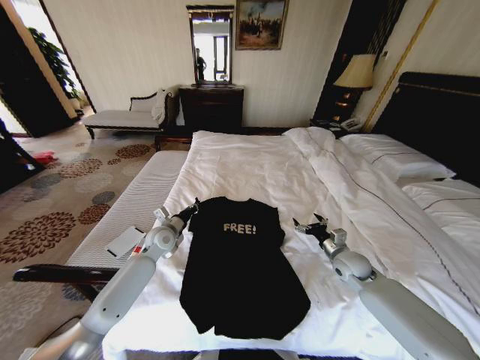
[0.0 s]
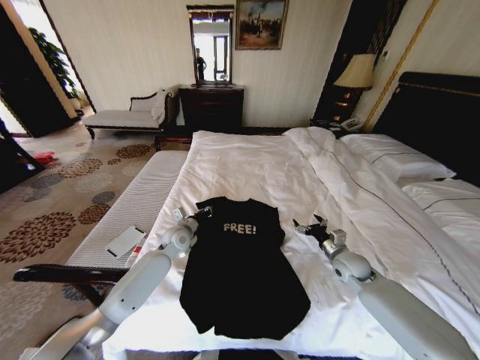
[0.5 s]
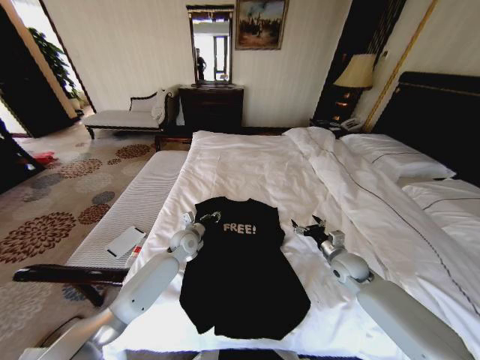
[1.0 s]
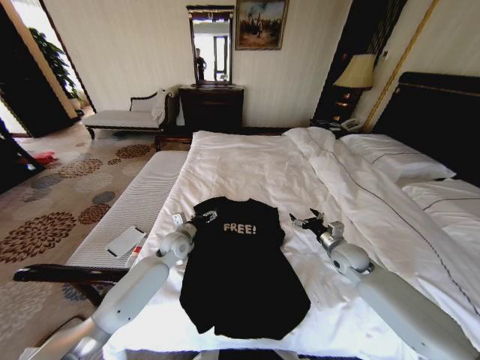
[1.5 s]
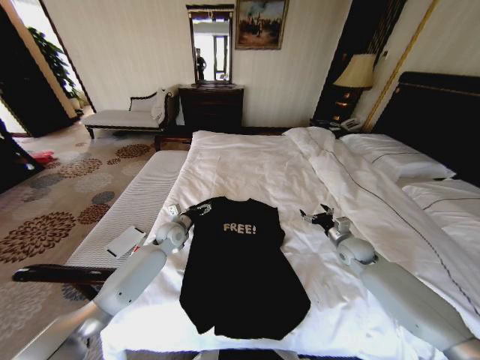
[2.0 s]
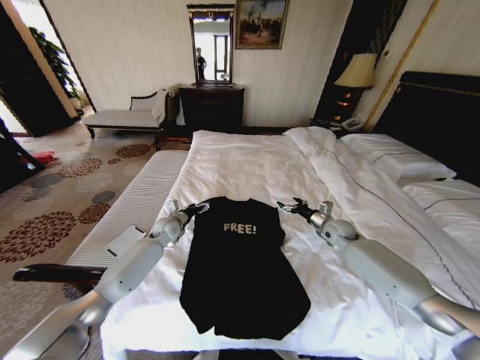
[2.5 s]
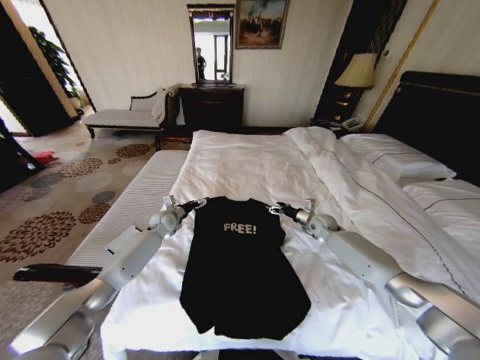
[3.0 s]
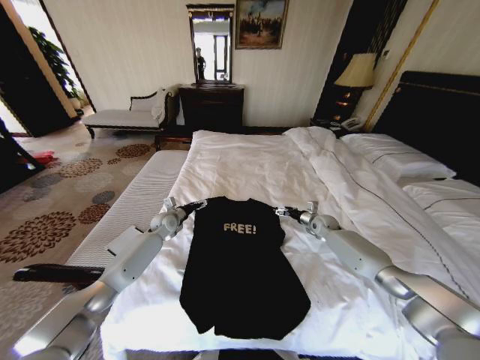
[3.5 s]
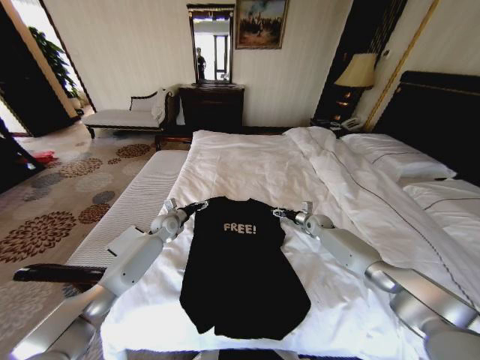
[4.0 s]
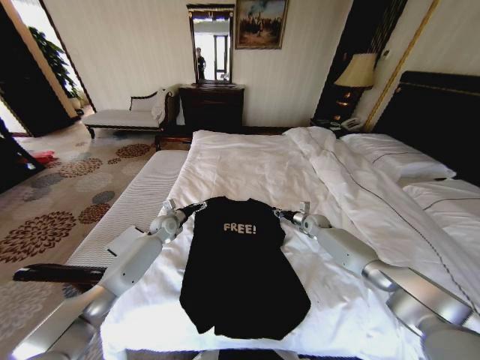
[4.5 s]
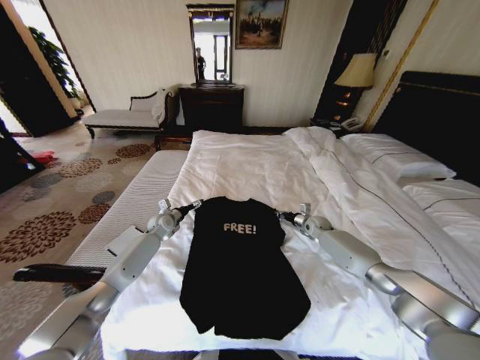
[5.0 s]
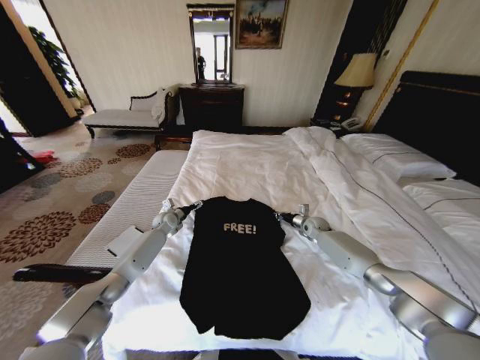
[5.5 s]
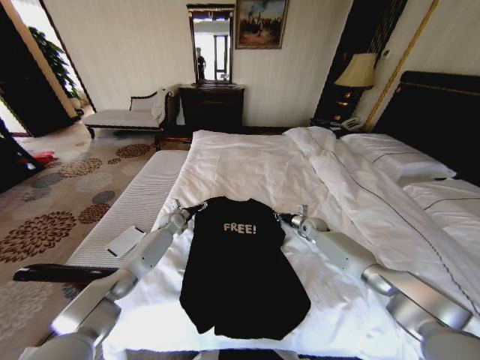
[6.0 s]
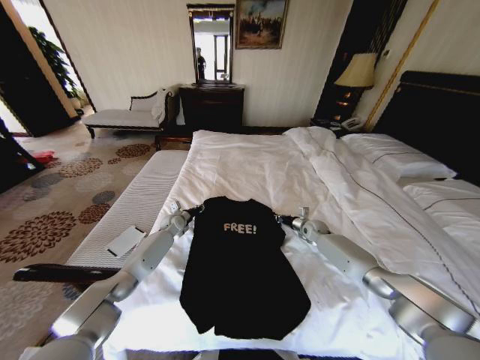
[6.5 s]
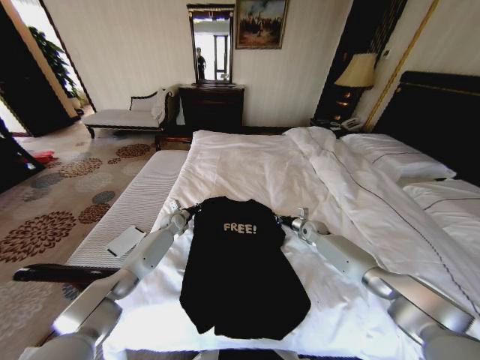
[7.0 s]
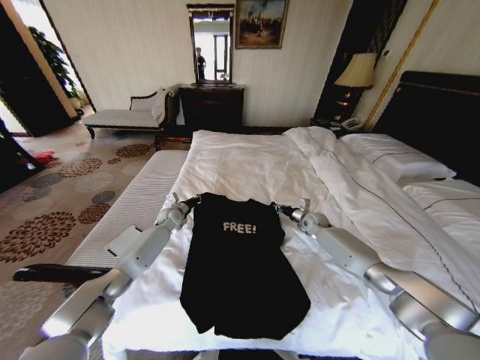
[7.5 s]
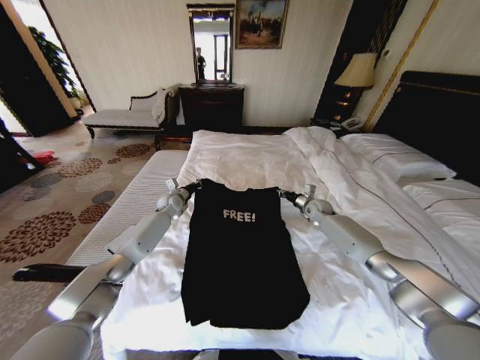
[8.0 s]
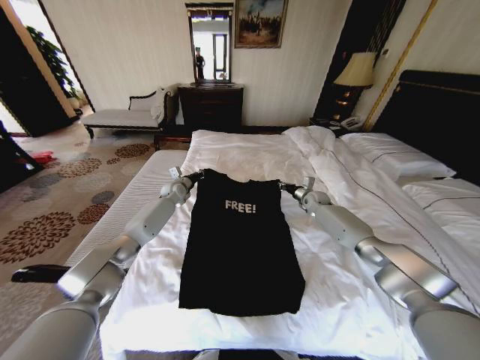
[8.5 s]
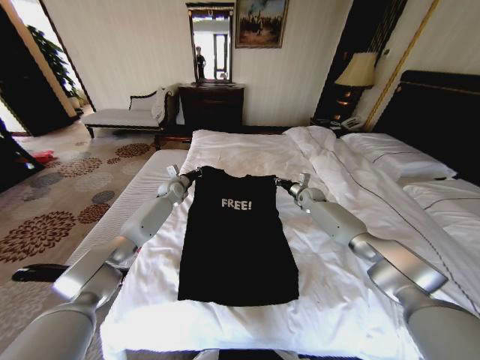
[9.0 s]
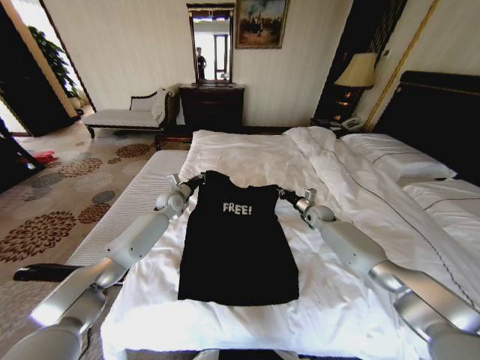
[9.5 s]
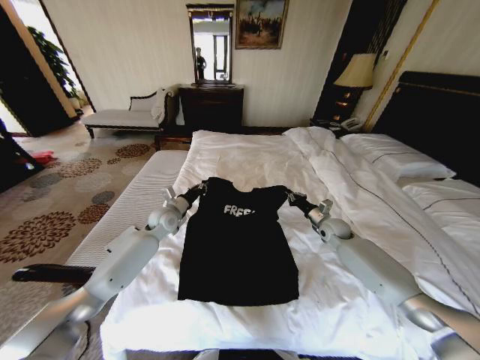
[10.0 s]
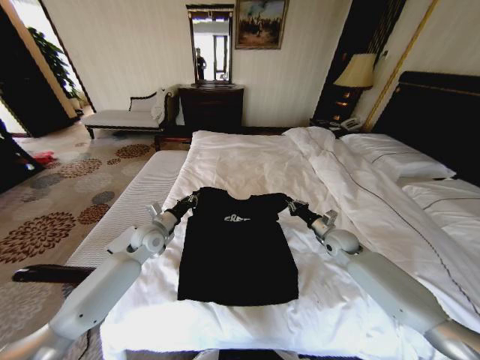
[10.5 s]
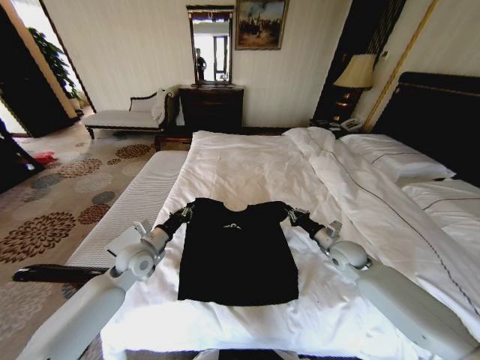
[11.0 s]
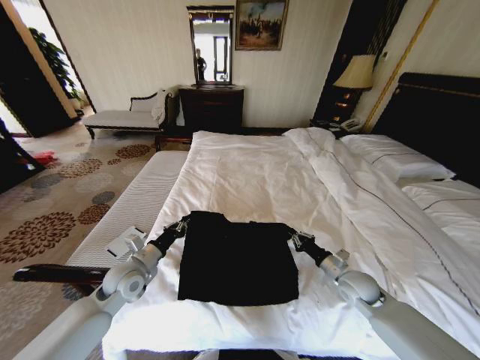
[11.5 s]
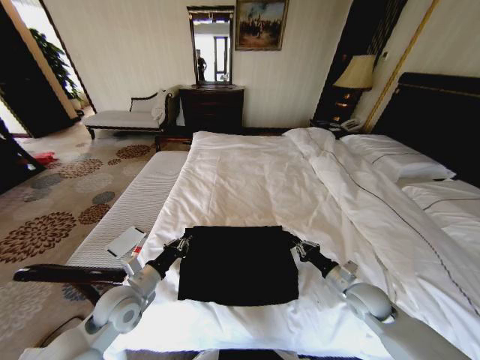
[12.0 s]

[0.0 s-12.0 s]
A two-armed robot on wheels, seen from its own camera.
Task of the whole recording: Fold the clothes on the bed.
0.0 to 2.0 s: The right gripper changes place by roughly 5 cm. Meanwhile the left gripper opens its fingers.
2.0 to 4.0 s: The left gripper shifts some 5 cm forward; the right gripper travels forward by roughly 15 cm.
4.0 to 6.0 s: The right gripper closes up; the left gripper moves approximately 5 cm.
6.0 to 8.0 s: The two grippers go roughly 10 cm upward. The left gripper closes up.
8.0 to 10.0 s: The two grippers go about 10 cm backward.
10.0 to 12.0 s: The two grippers go approximately 25 cm backward.

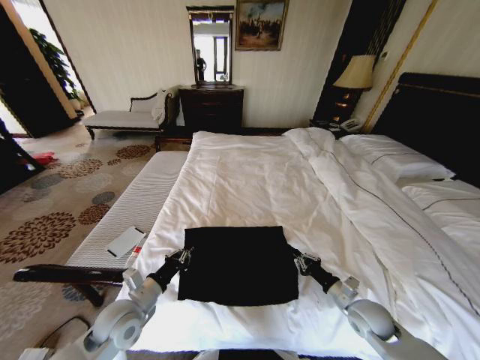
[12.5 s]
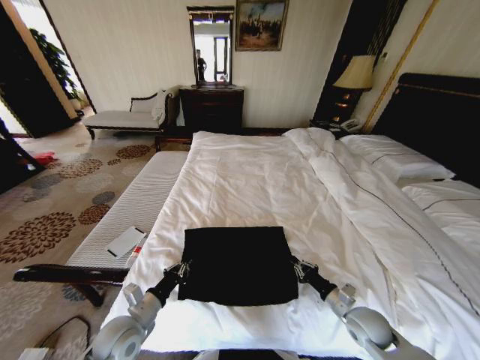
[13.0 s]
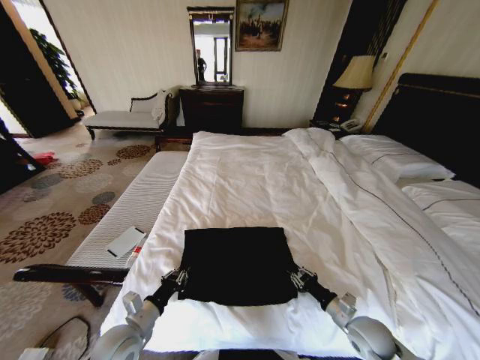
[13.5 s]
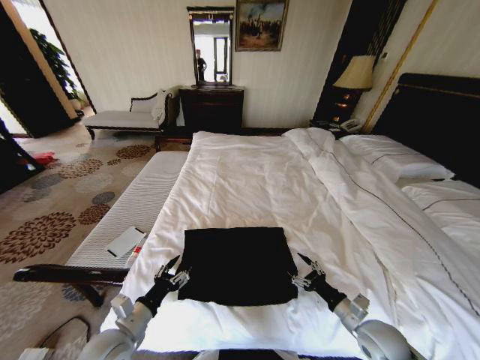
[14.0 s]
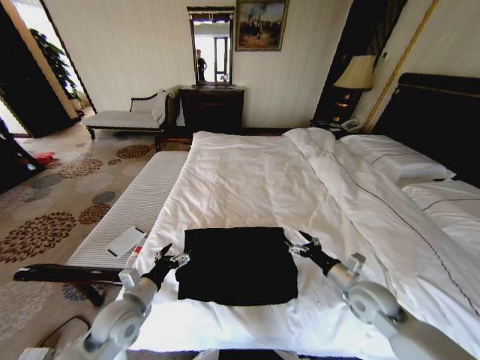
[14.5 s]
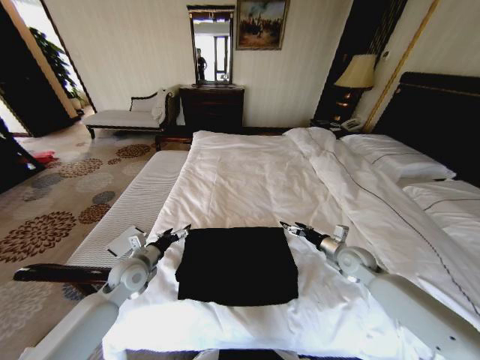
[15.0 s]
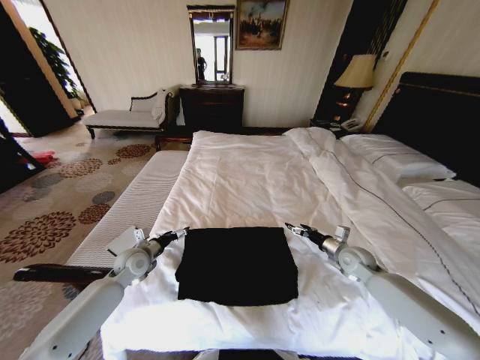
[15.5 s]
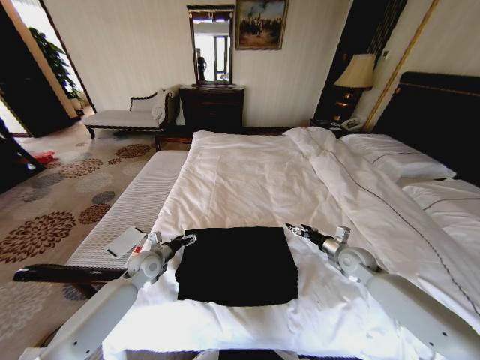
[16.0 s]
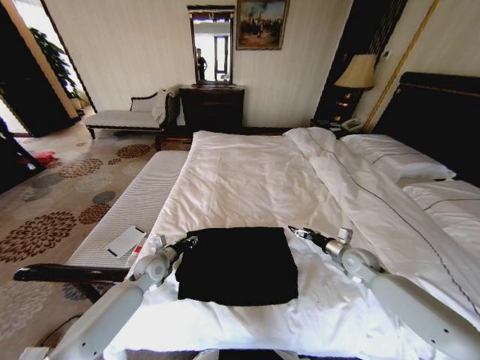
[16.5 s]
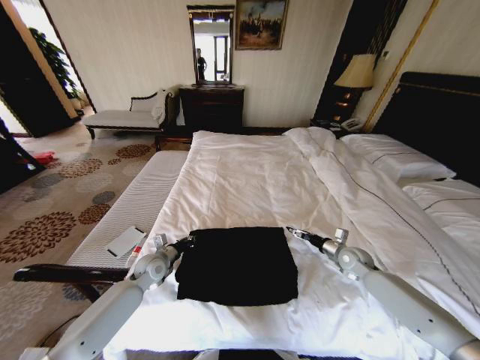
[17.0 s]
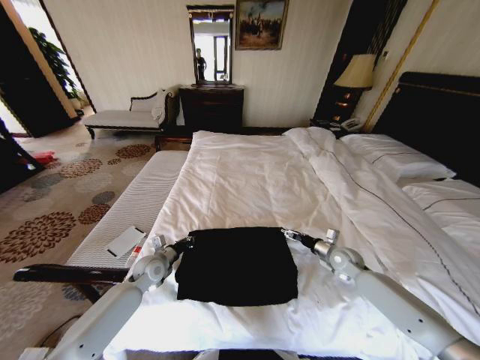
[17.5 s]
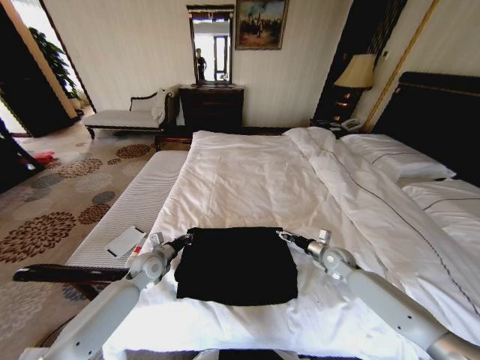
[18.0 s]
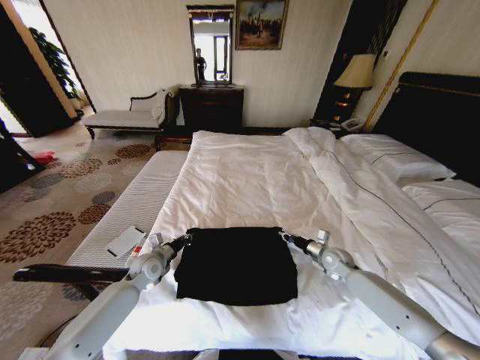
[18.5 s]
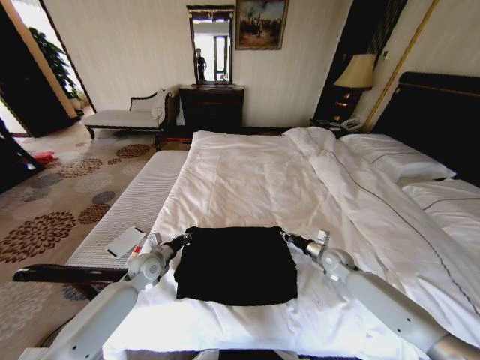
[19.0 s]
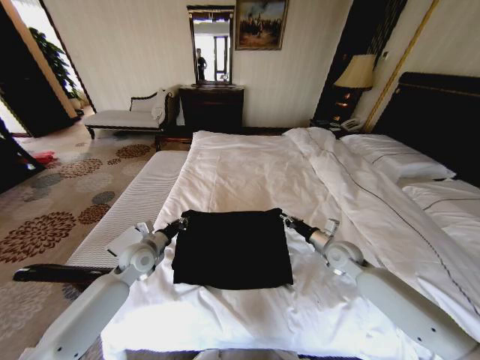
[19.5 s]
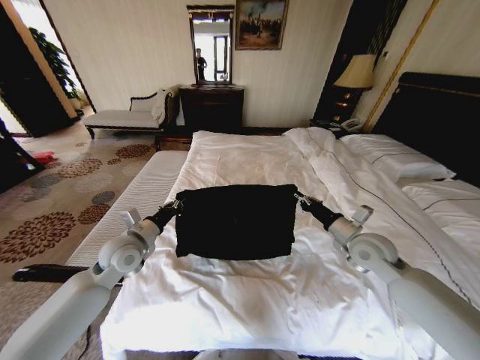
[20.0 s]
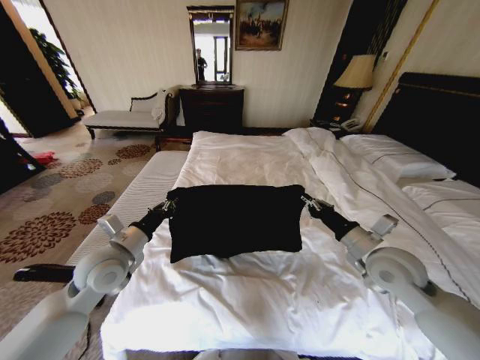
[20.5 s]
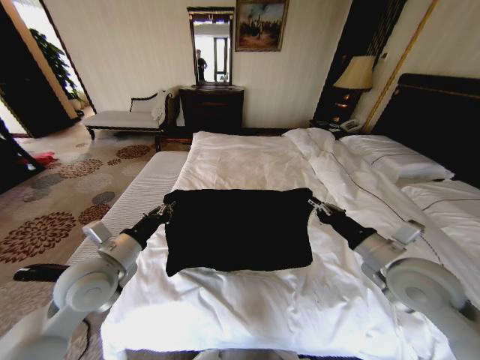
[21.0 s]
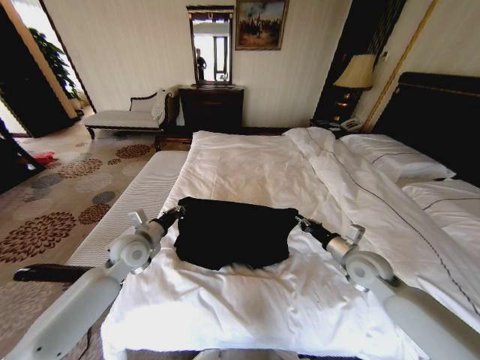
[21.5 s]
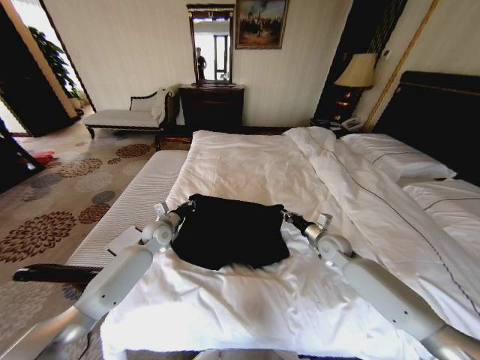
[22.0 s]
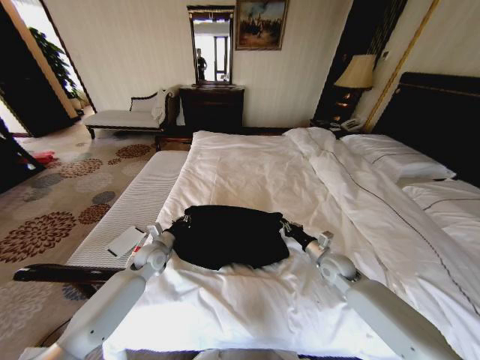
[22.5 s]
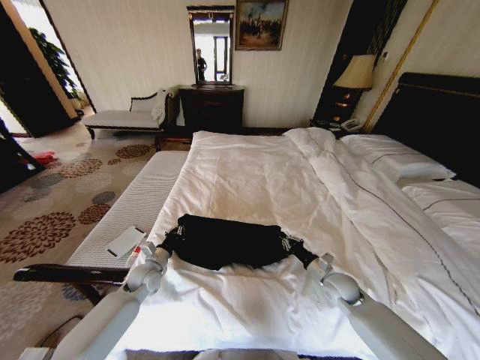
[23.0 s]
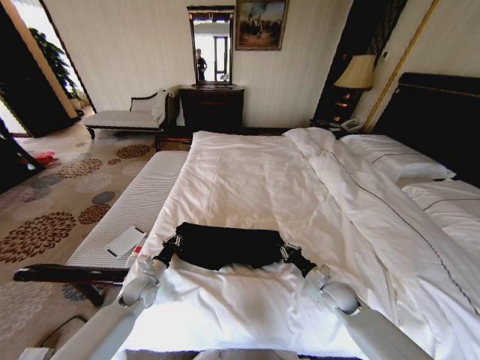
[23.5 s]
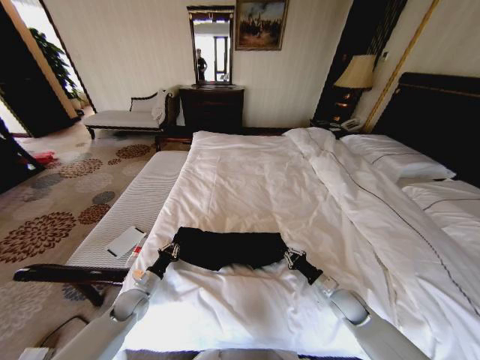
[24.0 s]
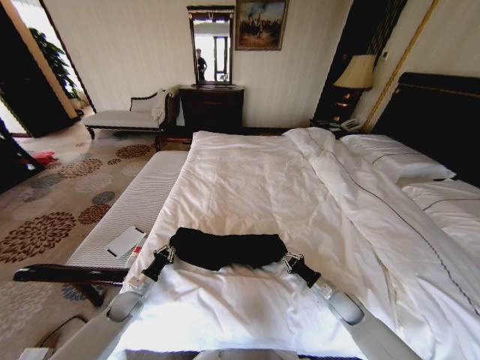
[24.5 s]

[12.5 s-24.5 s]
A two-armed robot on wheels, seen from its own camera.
Task of the whole recording: Fold the clothes on the bed.
12.5 to 14.5 s: The left gripper opens up; the right gripper is displaced upward by roughly 5 cm, and opens up.
14.5 to 16.5 s: The left gripper shifts approximately 15 cm forward, and closes its fingers, while the right gripper travels forward and to the right by approximately 15 cm.
16.5 to 18.5 s: The left gripper closes up. The right gripper ends up about 5 cm from where it was, and closes.
18.5 to 20.5 s: Both grippers travel together upward and backward, some 20 cm.
20.5 to 22.5 s: The right gripper moves downward and forward, roughly 20 cm; the left gripper moves forward and backward over about 20 cm, changing direction 2 times.
22.5 to 24.5 s: The right gripper shifts some 15 cm downward and backward, while the left gripper shifts approximately 20 cm downward, backward and to the left.

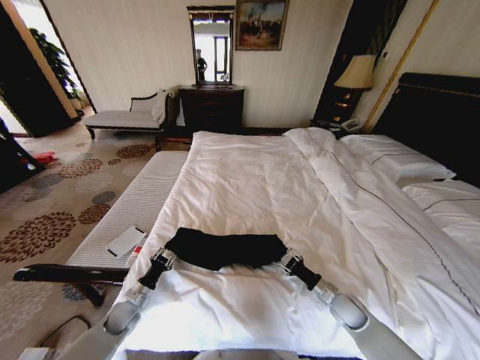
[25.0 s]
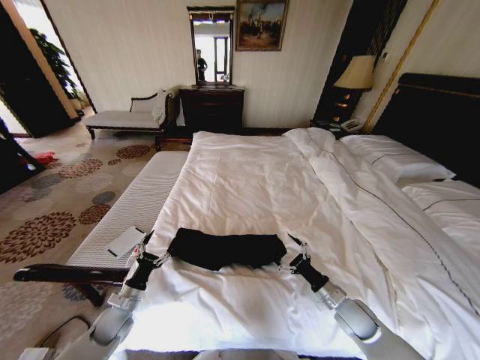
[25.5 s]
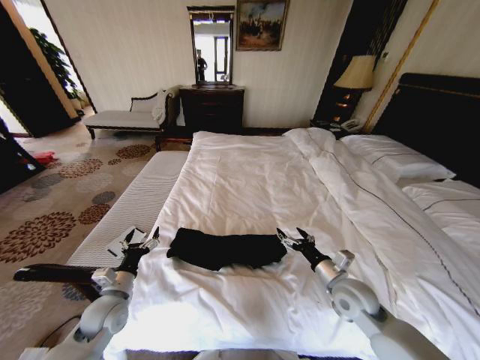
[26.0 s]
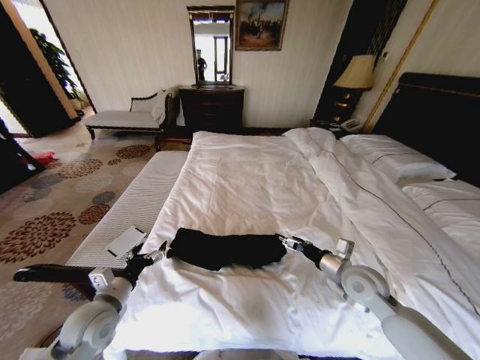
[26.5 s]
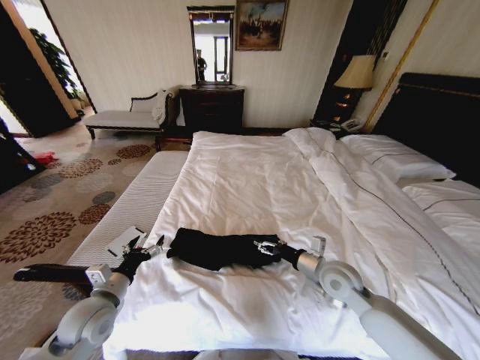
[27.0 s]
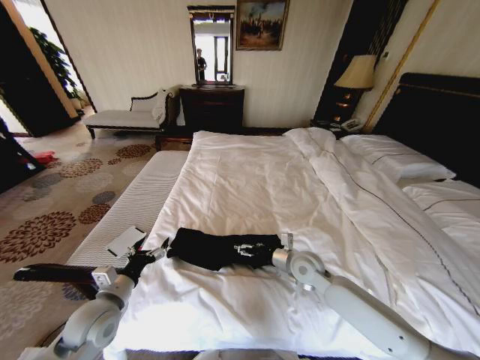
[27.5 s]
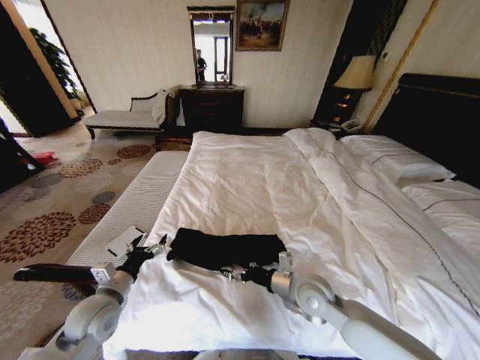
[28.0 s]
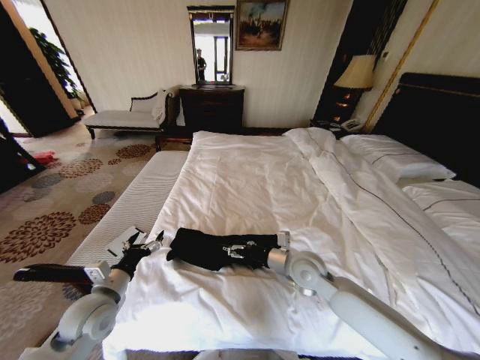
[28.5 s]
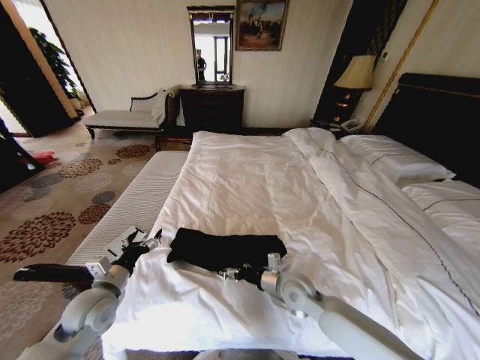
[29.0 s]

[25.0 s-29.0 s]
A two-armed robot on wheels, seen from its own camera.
Task of the whole recording: Fold the clothes on the bed.
25.0 to 27.0 s: The right gripper is displaced upward and to the left by roughly 20 cm, and opens up. The left gripper travels upward by roughly 20 cm, and opens up.
27.0 to 29.0 s: The right gripper is displaced to the left and downward by some 10 cm.
